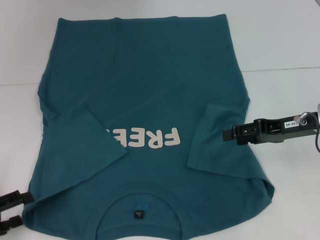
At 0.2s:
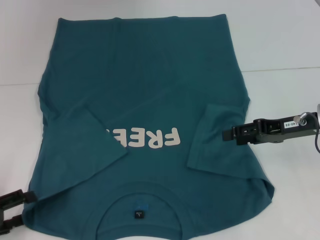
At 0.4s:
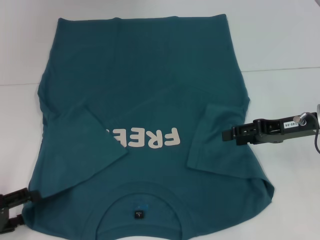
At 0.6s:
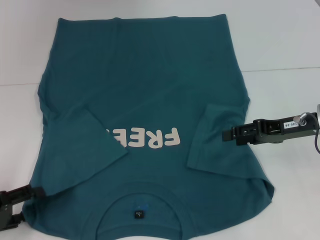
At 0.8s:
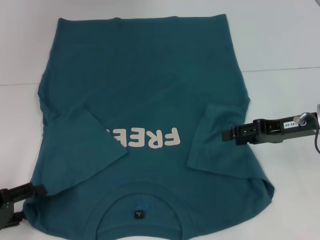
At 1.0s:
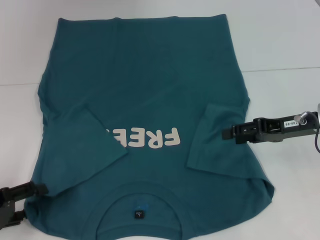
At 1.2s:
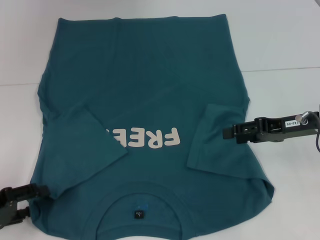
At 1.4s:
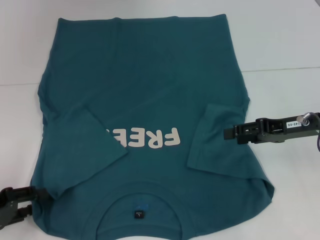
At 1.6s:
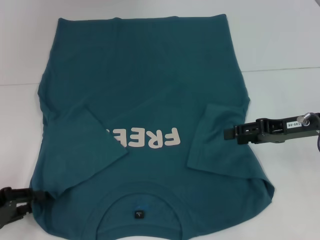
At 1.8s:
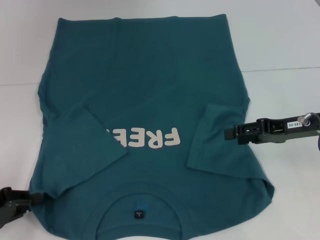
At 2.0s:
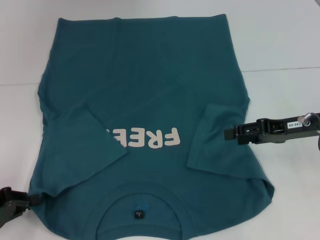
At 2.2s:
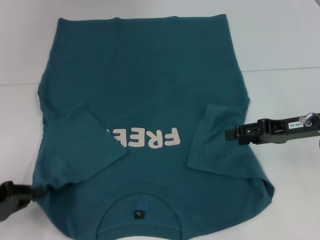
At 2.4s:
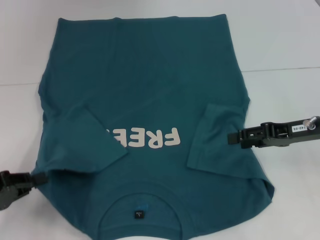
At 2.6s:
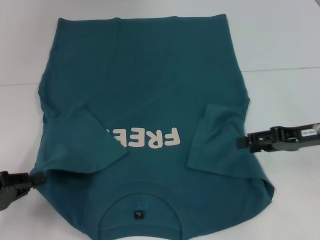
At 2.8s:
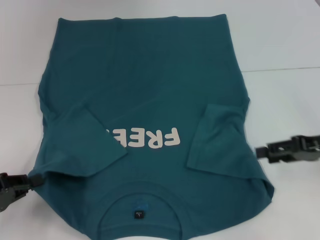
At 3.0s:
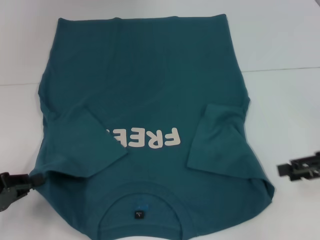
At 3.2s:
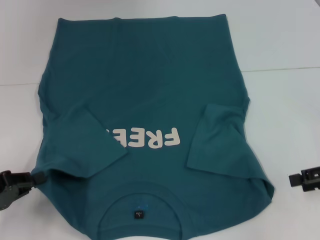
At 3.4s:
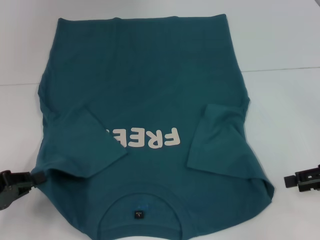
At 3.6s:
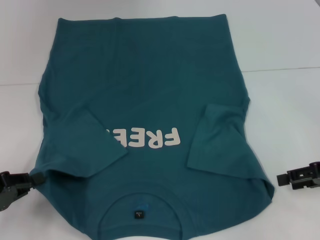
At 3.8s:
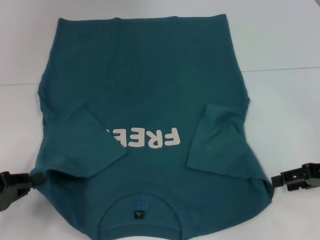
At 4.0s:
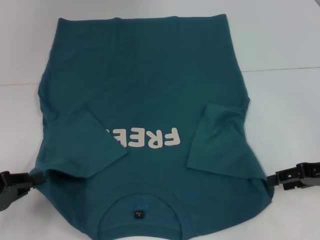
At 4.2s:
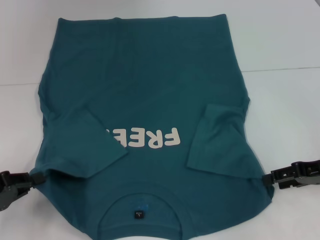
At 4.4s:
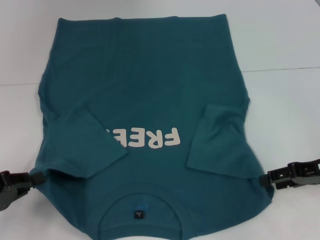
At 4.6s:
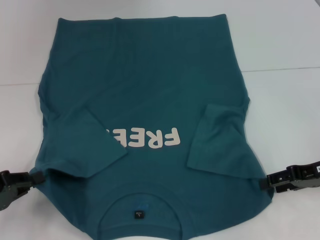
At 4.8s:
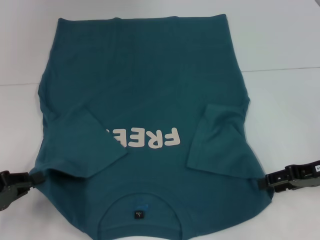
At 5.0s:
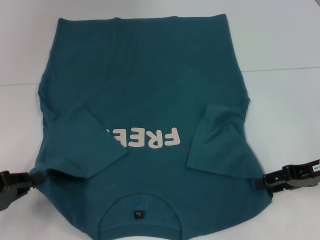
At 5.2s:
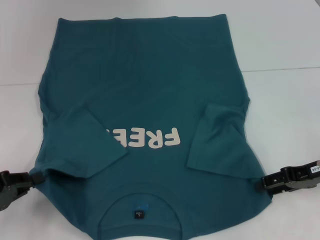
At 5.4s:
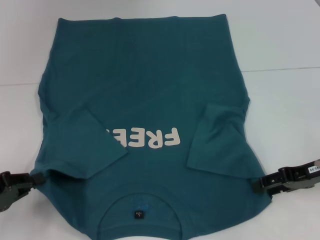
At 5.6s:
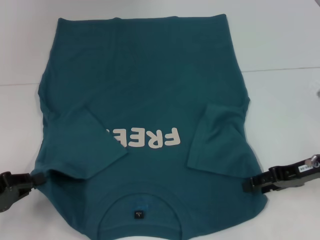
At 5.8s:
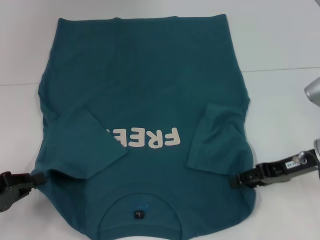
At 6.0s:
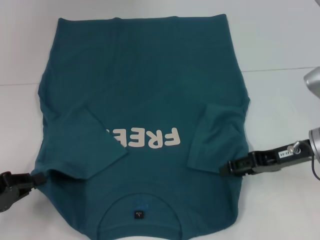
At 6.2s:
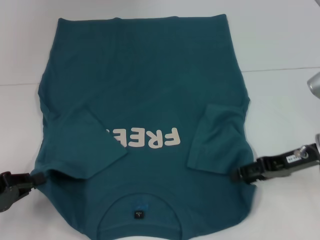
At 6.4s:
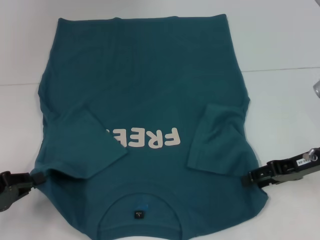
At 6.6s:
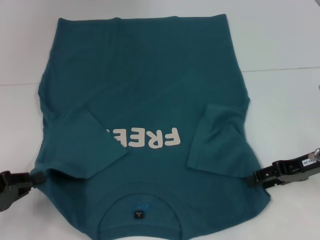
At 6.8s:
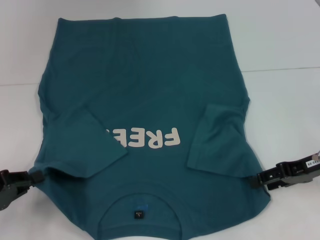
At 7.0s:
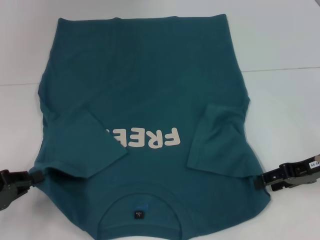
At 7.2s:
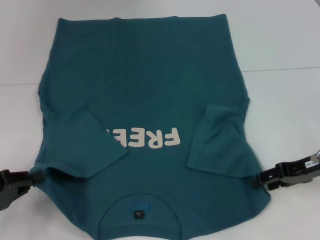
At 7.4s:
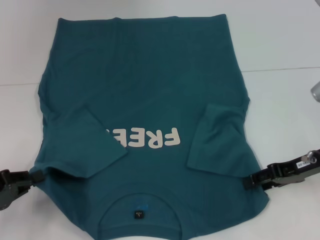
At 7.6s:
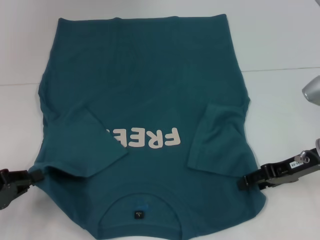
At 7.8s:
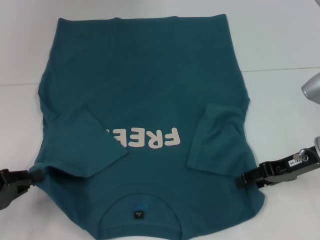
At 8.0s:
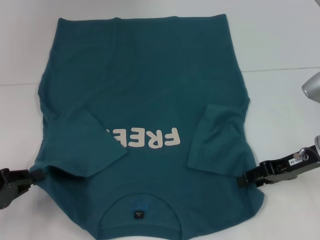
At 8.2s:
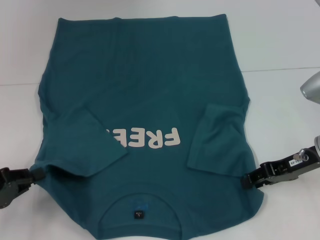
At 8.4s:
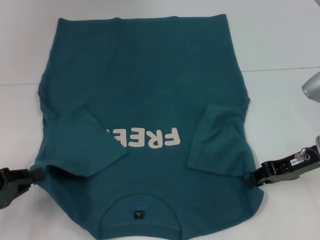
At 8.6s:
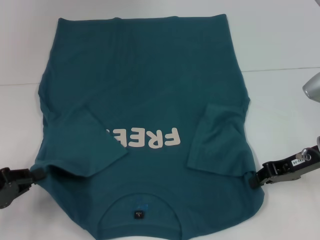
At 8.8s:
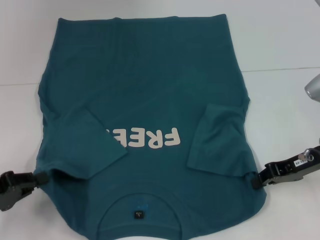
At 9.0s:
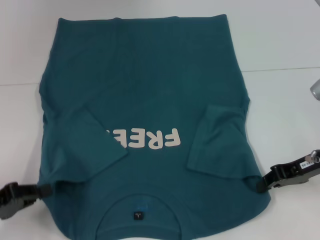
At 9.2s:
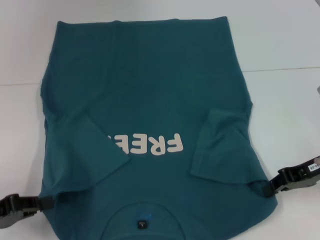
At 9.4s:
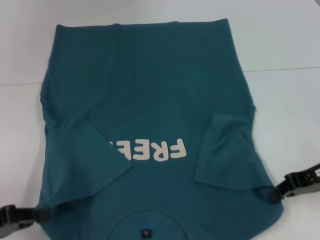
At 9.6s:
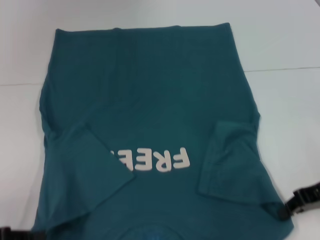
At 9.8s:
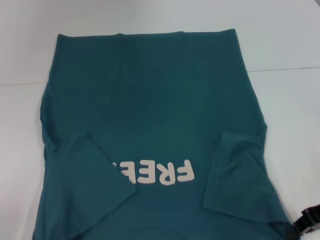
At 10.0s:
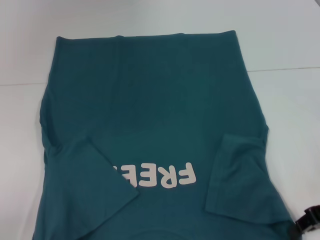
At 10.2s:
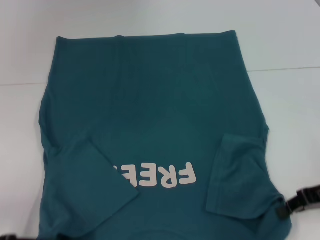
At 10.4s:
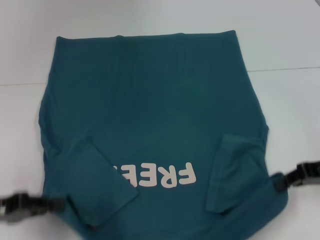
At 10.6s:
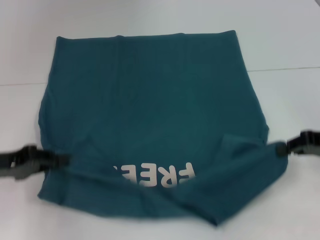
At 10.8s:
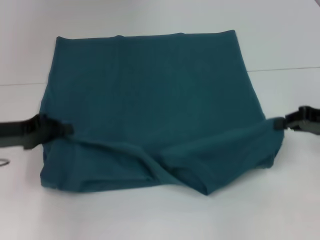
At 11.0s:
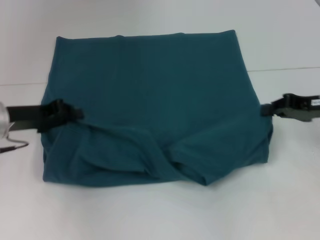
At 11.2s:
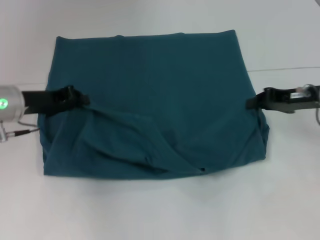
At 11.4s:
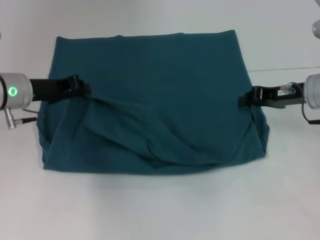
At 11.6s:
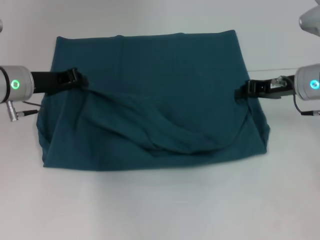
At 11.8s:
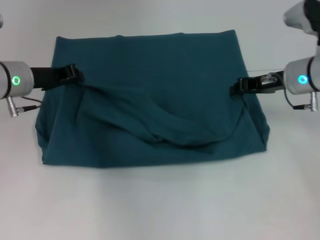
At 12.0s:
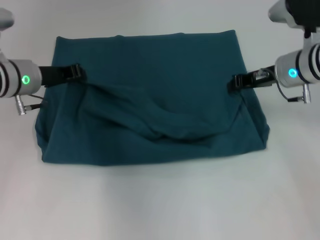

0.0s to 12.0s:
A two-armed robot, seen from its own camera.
Step, 0.0s to 2.4s: Grab the bottom left corner with your left hand.
Step, 2.6s to 9.0s: Grab the bottom right corner with your right hand.
0.0s to 1.6s: The grippers move only a little.
1.6s to 3.0s: The right gripper travels to the right and backward by approximately 10 cm, while the left gripper closes up.
3.0s to 4.4s: There are only small adjustments of the grippers.
4.4s to 6.0s: The right gripper moves to the left, about 5 cm.
6.0s to 7.6s: The grippers move only a little.
7.6s to 9.0s: The right gripper closes its fingers.
9.0s to 10.4s: The grippers make only small movements.
10.4s to 12.0s: The left gripper moves forward and to the right, approximately 20 cm; the right gripper moves forward and to the left, approximately 15 cm.

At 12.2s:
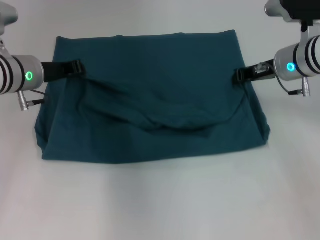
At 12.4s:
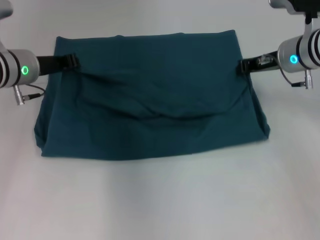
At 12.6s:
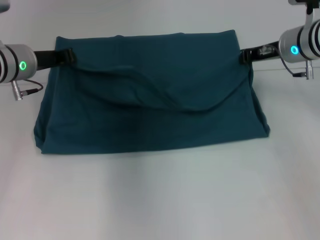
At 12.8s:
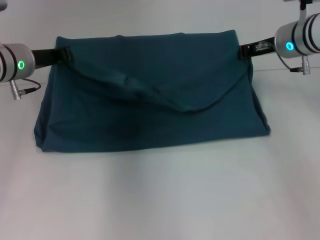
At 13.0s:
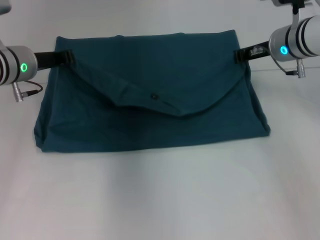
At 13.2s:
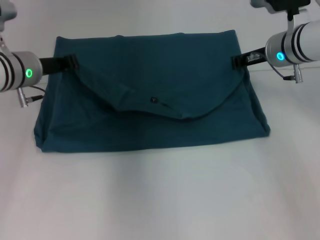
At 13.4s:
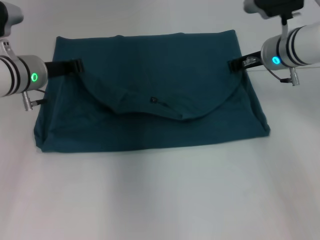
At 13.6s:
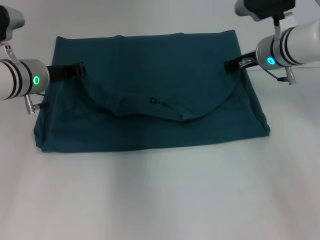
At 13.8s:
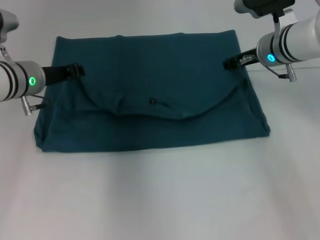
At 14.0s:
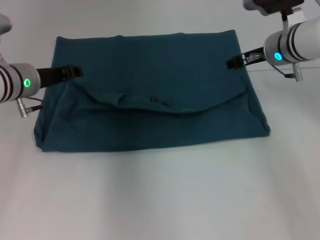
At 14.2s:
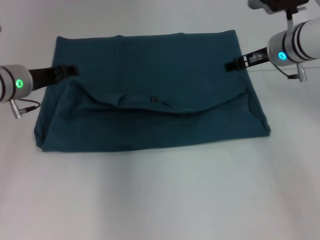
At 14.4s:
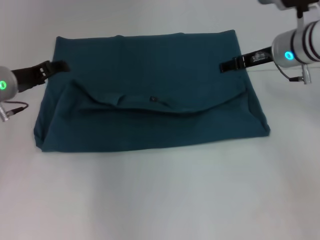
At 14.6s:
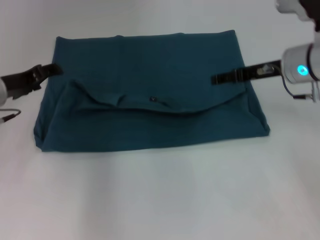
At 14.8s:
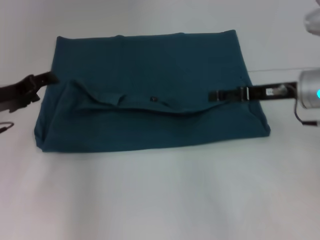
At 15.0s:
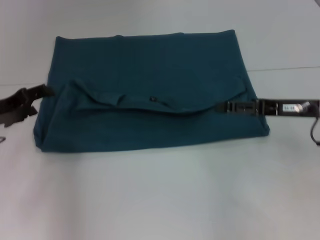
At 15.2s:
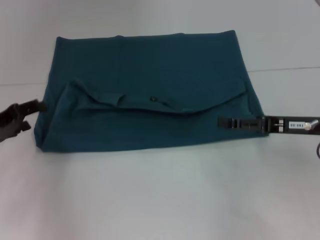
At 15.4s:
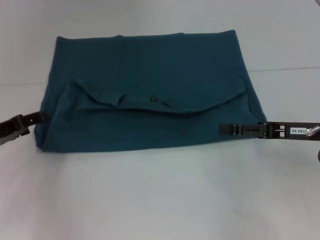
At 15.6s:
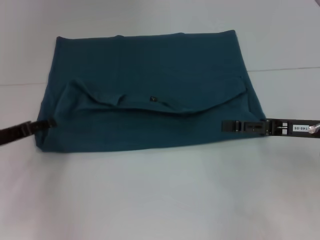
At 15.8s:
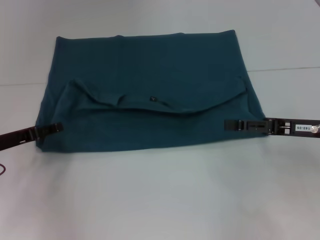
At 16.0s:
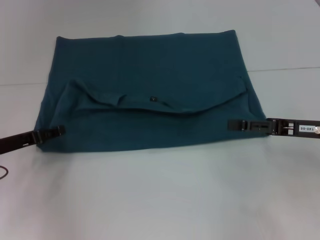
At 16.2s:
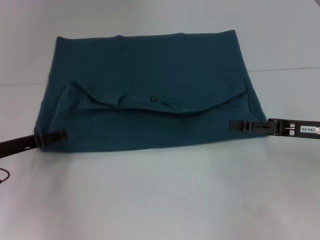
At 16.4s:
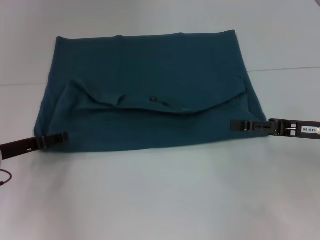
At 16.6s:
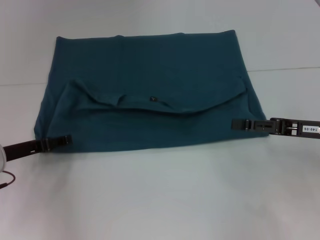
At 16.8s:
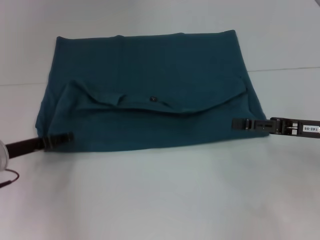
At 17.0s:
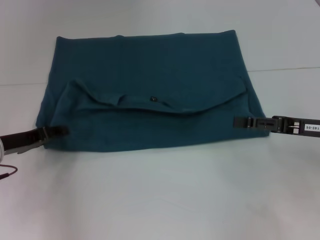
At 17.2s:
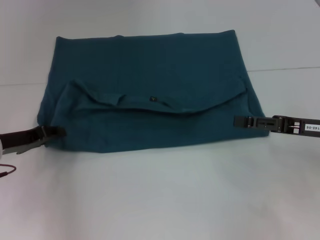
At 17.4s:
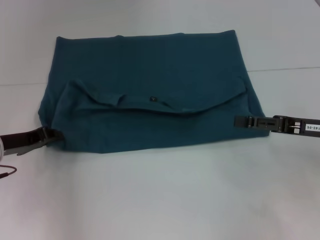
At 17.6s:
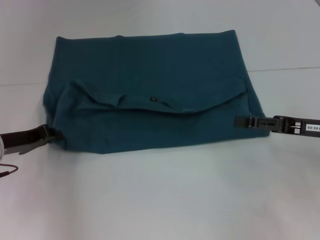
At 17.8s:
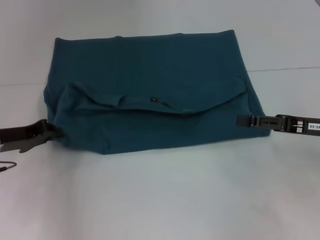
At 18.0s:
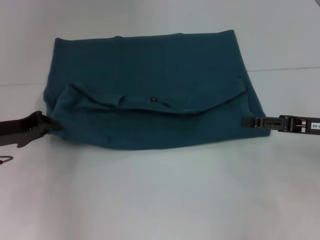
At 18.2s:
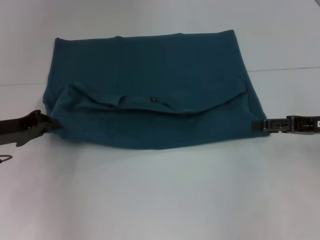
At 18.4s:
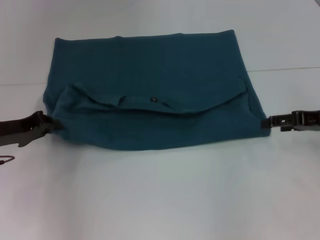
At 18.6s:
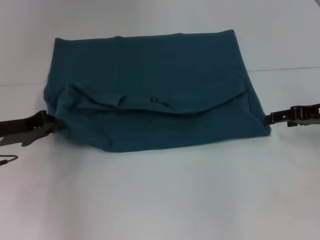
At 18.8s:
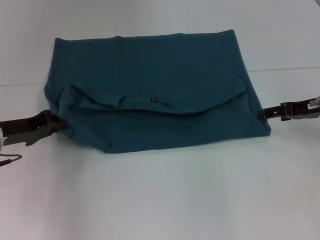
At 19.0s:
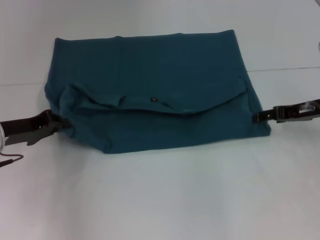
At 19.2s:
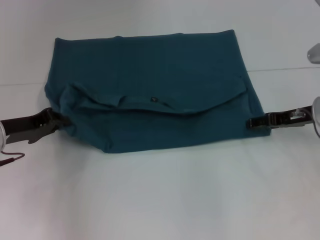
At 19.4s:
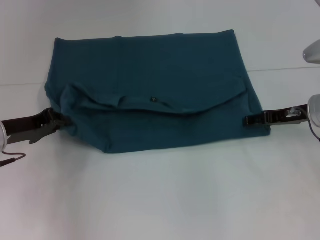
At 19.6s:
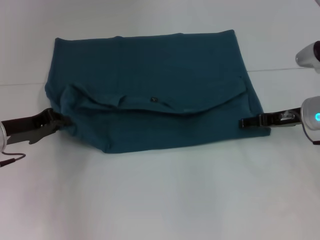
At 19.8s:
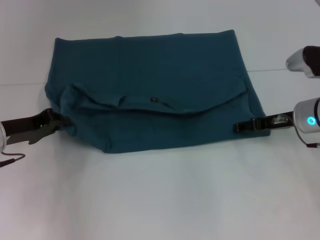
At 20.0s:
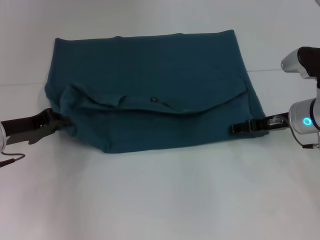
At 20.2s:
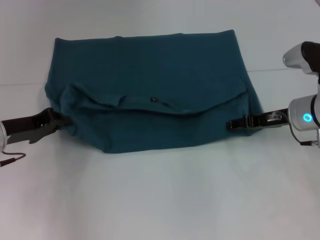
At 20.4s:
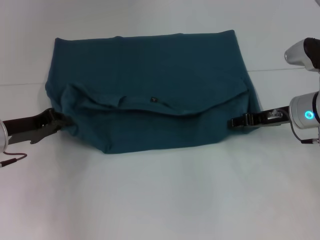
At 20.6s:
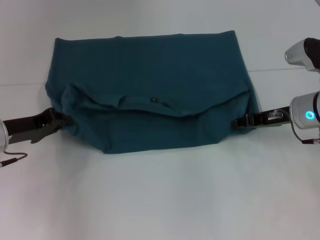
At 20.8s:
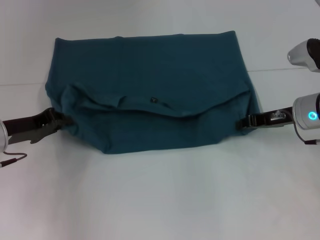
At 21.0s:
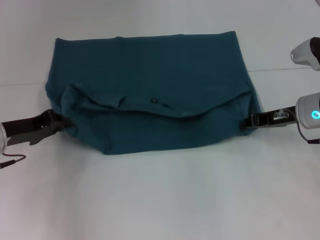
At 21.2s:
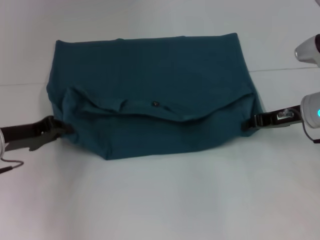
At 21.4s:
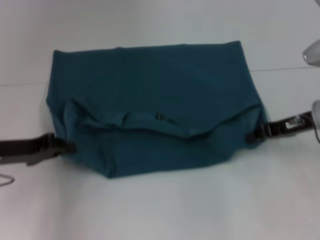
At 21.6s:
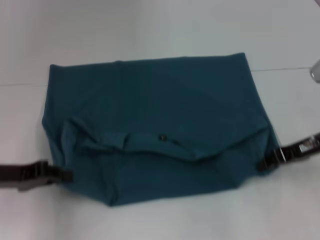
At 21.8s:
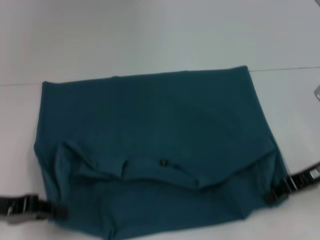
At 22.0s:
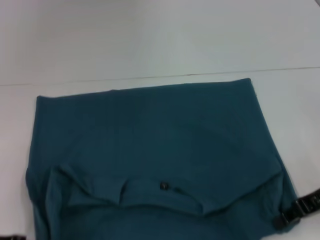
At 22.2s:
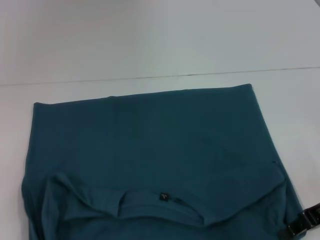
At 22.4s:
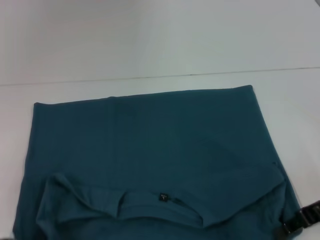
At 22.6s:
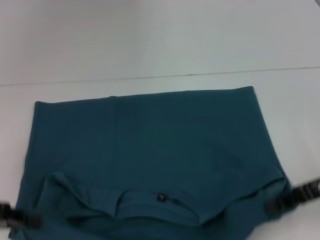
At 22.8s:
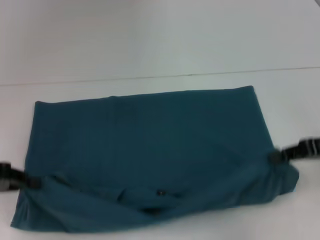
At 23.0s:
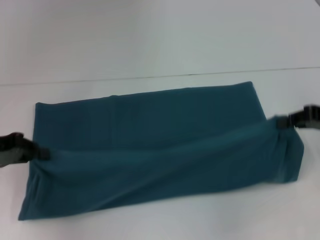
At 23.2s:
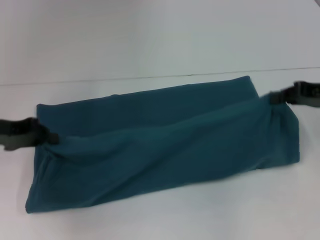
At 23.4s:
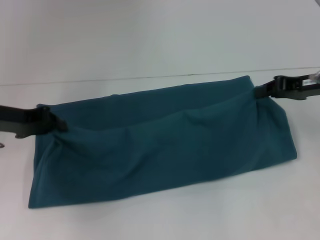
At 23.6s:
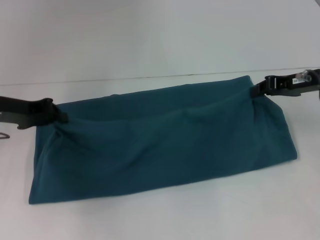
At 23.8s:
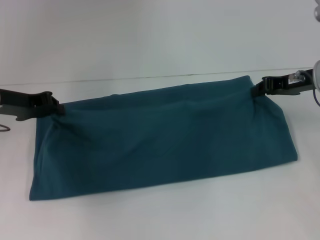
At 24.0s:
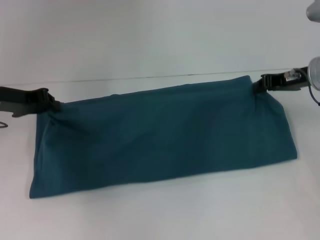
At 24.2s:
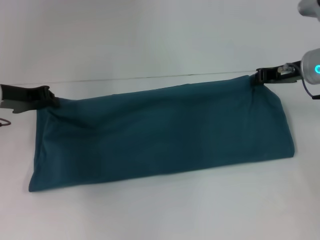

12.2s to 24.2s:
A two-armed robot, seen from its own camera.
Step, 12.2s to 14.2s: Fold the clothes to the left.
Step, 12.2s to 14.2s: Fold the clothes to the right.
Step, 14.4s to 22.2s: Pull the clothes with your left hand.
Step, 14.4s to 22.2s: Pull the clothes with your right hand.
12.2s to 13.8s: The grippers stay close to where they were, moving slightly.
13.8s to 15.2s: The right gripper goes approximately 15 cm backward and to the right, and opens its fingers, while the left gripper travels to the left and backward by about 15 cm, and opens its fingers.
15.2s to 16.6s: The left gripper moves approximately 5 cm.
16.6s to 18.2s: The left gripper closes its fingers.
18.2s to 19.8s: The right gripper shifts some 10 cm to the left and forward.
19.8s to 21.2s: The right gripper closes.
21.2s to 22.6s: The left gripper moves backward and to the left, about 10 cm. Meanwhile the right gripper travels backward by approximately 10 cm.
22.6s to 24.2s: The right gripper heads forward, covering roughly 15 cm. The left gripper goes some 15 cm forward and to the right.
